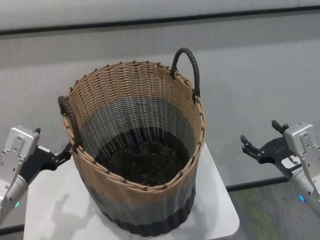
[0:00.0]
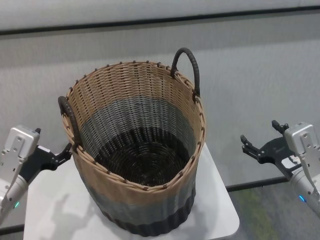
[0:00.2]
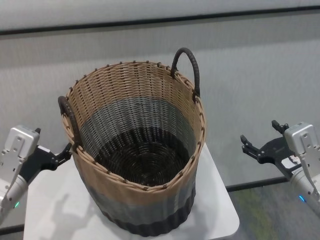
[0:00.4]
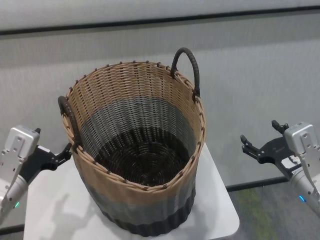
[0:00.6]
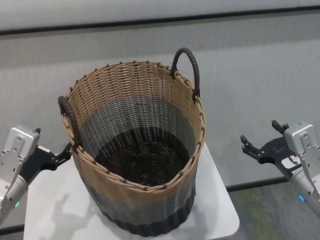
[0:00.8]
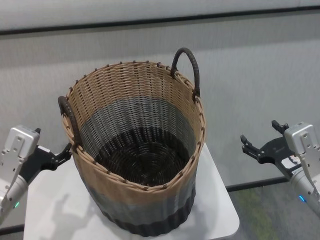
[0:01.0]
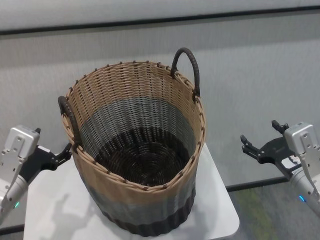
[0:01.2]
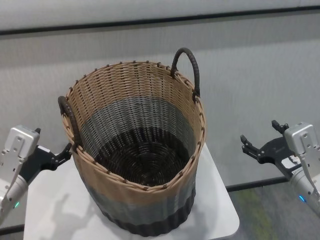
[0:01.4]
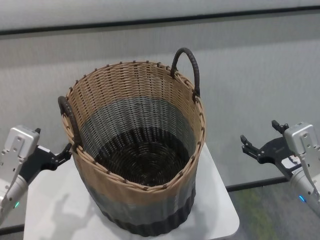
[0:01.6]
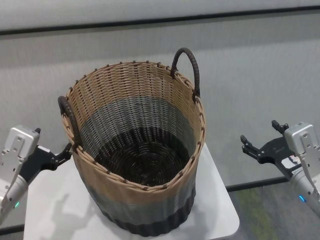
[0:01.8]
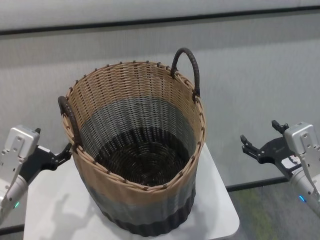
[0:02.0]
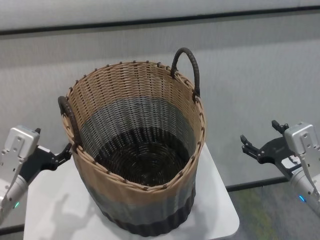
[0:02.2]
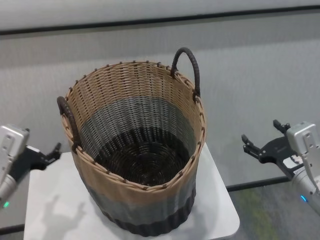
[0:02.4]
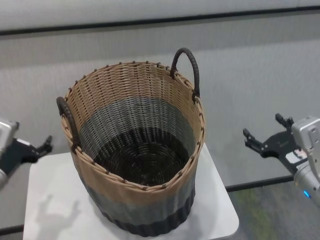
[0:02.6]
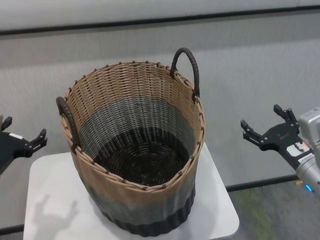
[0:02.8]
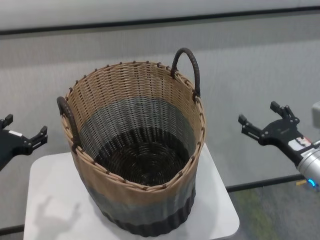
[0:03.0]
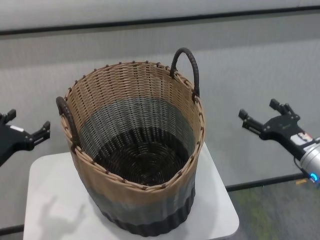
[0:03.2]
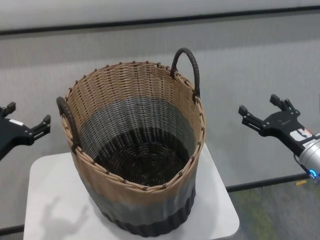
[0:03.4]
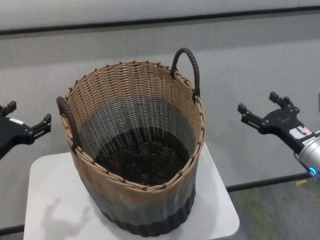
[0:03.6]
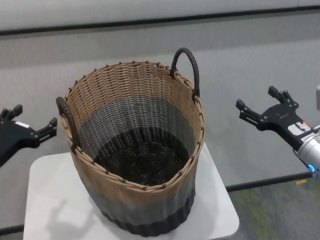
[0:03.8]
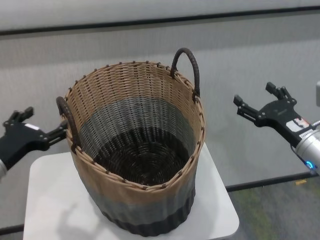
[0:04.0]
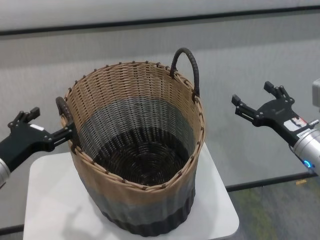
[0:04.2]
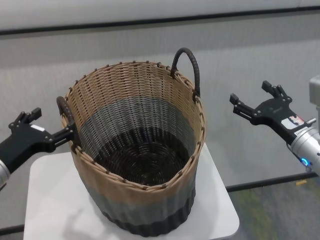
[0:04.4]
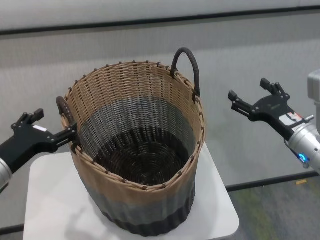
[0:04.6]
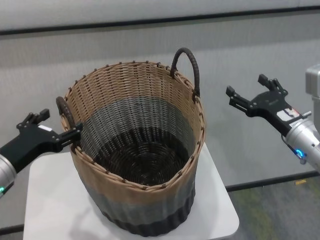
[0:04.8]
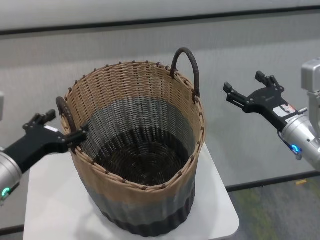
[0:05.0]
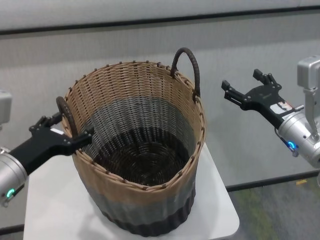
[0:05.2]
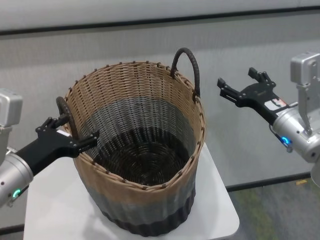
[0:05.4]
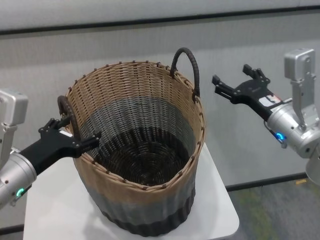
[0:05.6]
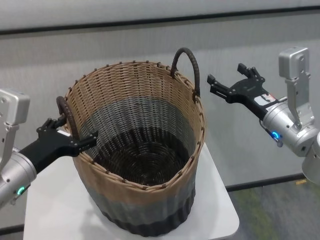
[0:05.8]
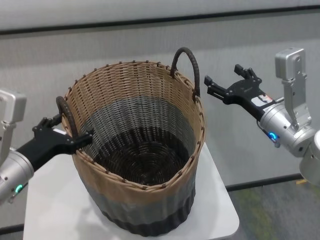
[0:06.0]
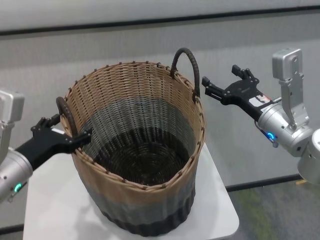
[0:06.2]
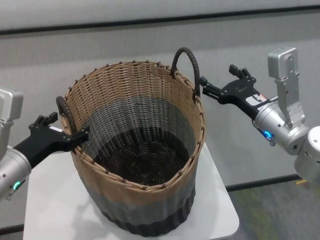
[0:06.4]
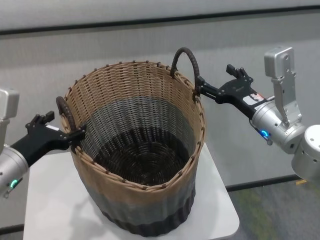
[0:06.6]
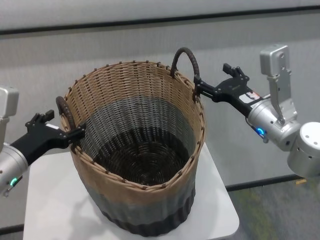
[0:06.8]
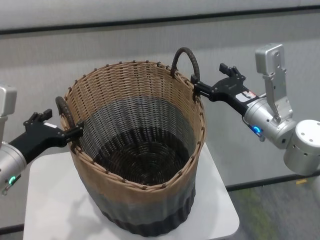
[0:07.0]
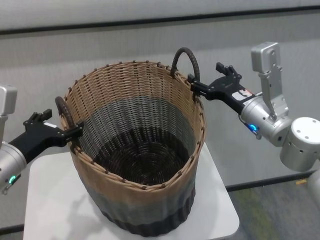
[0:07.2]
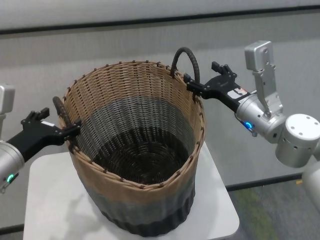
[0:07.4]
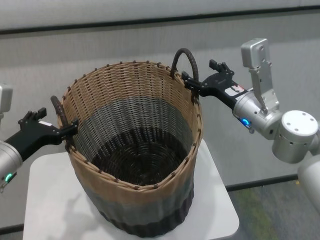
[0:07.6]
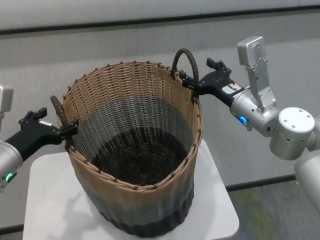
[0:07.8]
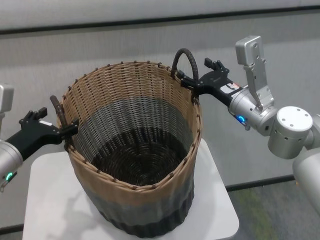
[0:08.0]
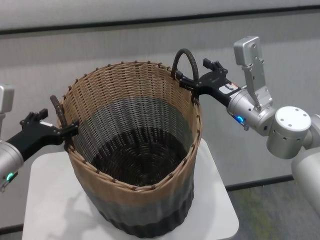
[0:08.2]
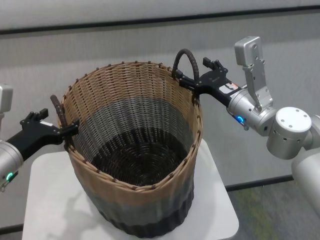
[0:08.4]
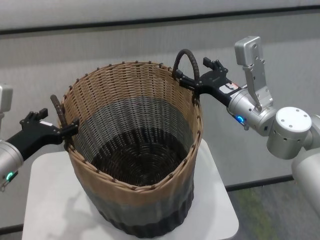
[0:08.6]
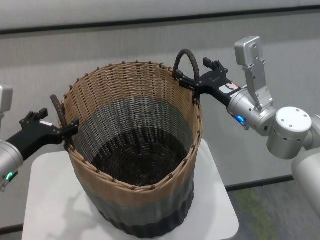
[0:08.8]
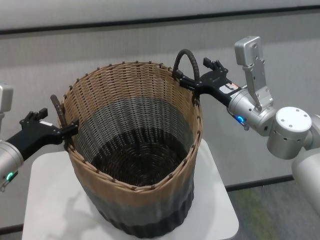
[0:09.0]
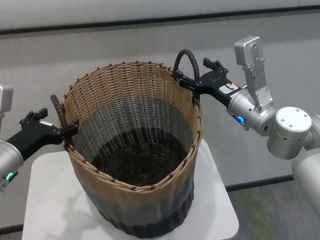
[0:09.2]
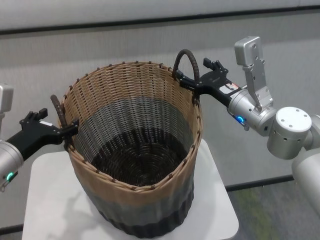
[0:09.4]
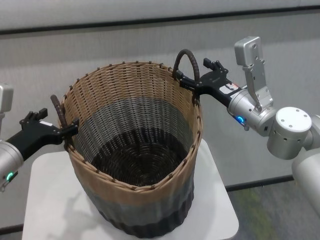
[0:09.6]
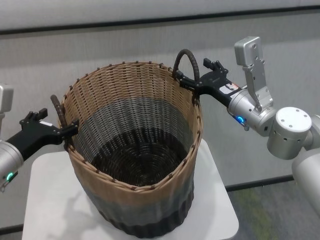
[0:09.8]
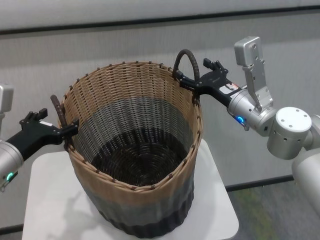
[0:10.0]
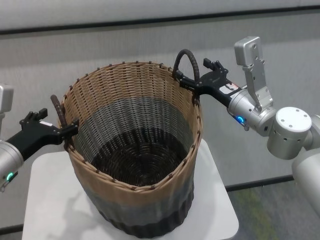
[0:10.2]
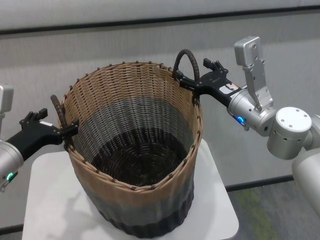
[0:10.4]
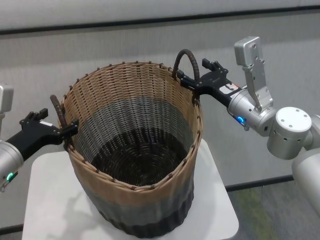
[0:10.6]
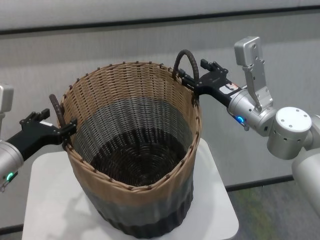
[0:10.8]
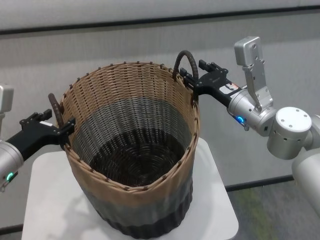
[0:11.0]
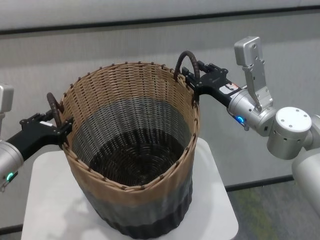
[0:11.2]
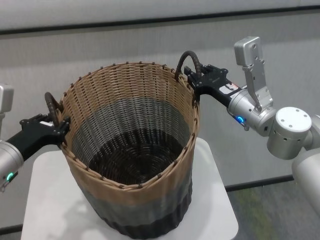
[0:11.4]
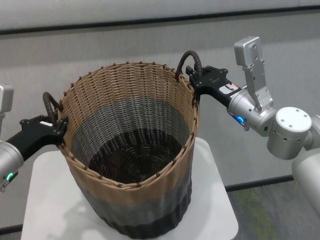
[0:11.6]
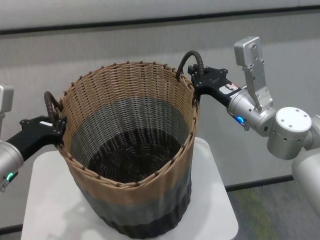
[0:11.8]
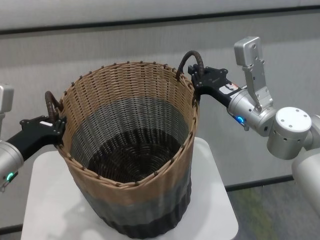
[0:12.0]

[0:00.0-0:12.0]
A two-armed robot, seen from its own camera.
Task of the whole recording: carry the clothes basket in coordination with both hands.
Step, 0:00.0 to 0:11.6: Grasp the basket with both grippers.

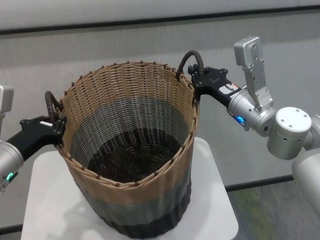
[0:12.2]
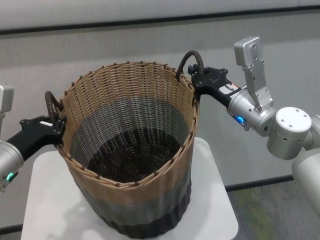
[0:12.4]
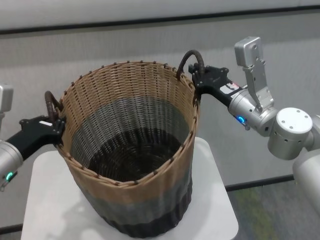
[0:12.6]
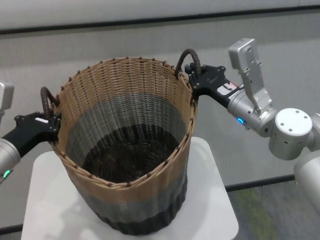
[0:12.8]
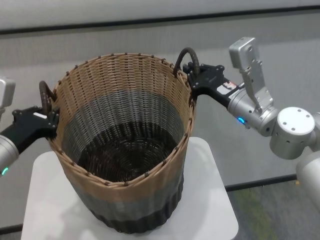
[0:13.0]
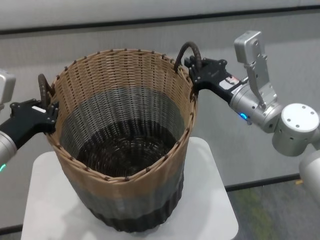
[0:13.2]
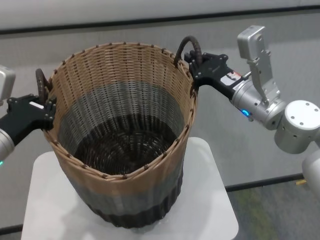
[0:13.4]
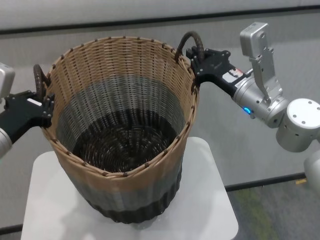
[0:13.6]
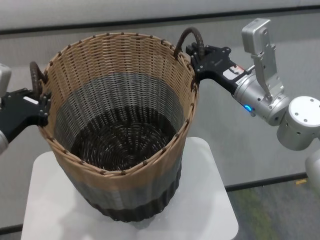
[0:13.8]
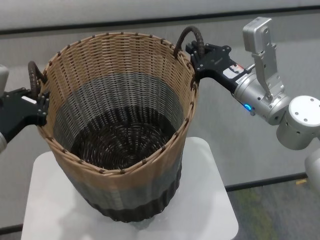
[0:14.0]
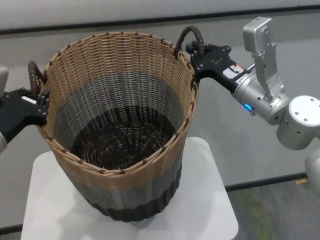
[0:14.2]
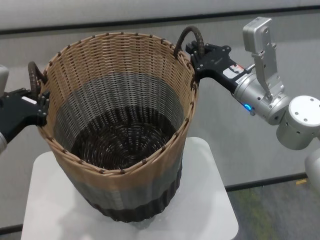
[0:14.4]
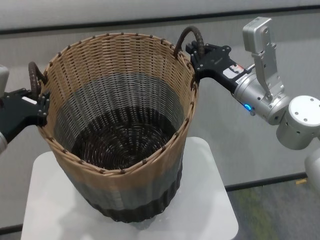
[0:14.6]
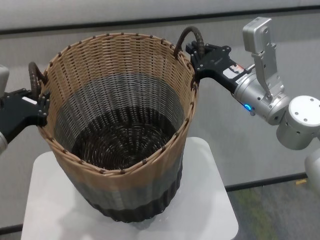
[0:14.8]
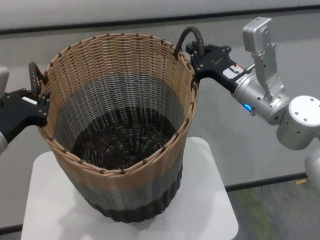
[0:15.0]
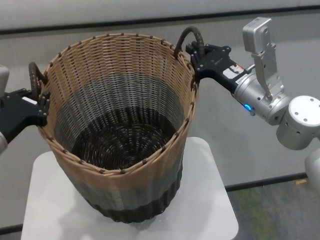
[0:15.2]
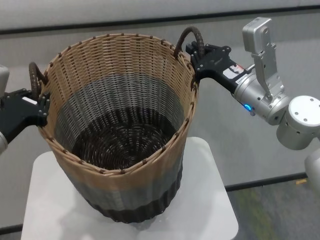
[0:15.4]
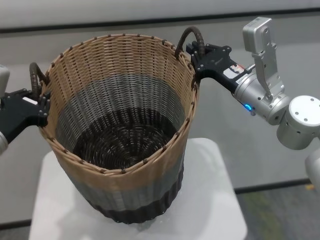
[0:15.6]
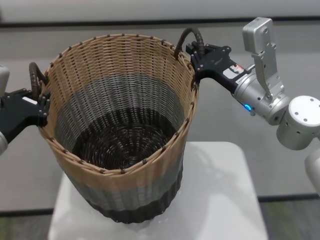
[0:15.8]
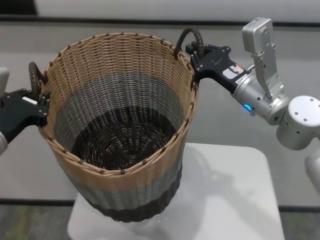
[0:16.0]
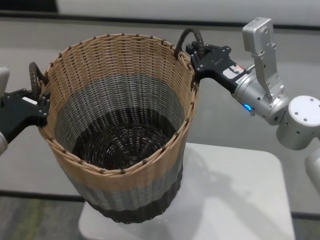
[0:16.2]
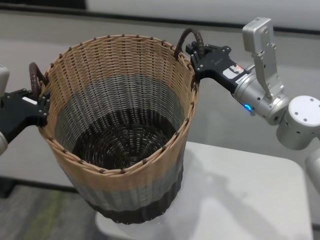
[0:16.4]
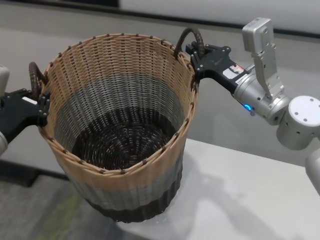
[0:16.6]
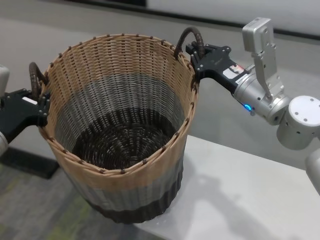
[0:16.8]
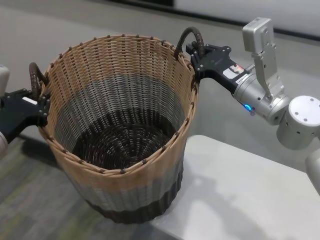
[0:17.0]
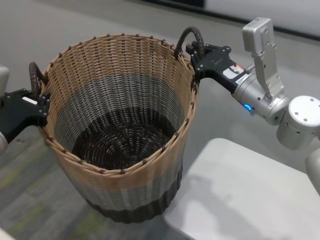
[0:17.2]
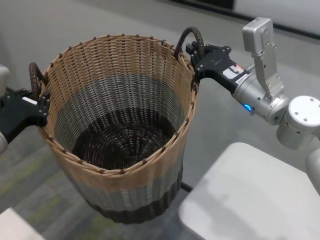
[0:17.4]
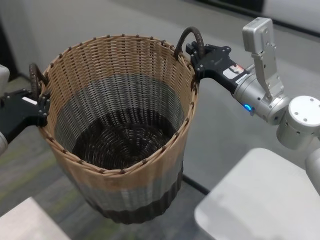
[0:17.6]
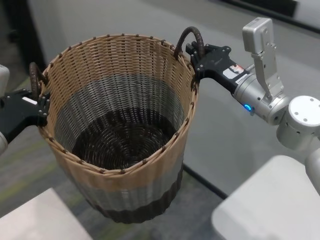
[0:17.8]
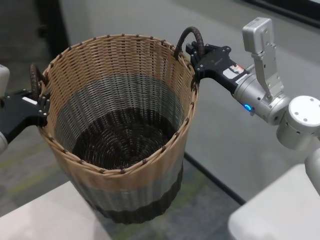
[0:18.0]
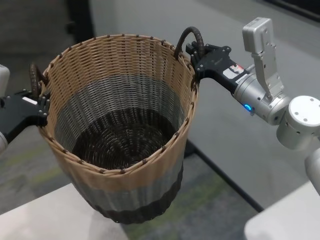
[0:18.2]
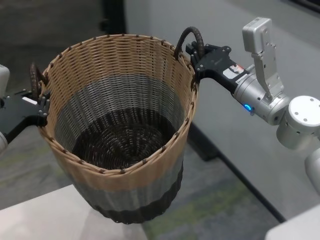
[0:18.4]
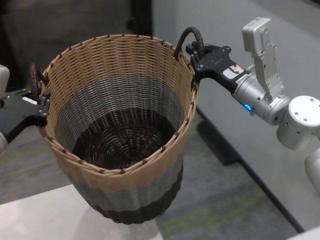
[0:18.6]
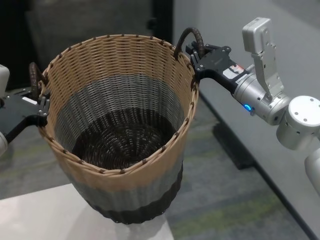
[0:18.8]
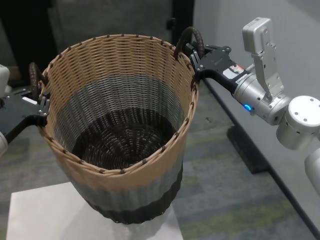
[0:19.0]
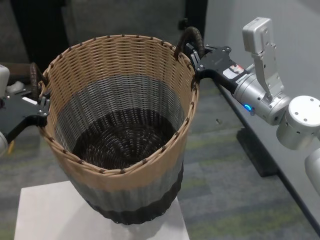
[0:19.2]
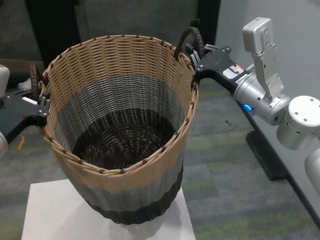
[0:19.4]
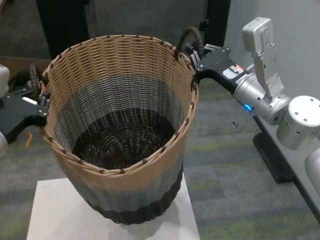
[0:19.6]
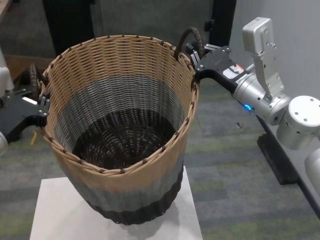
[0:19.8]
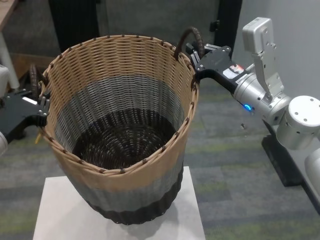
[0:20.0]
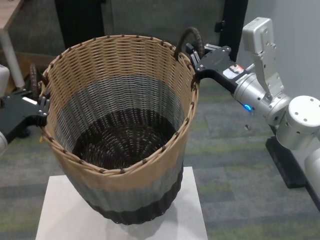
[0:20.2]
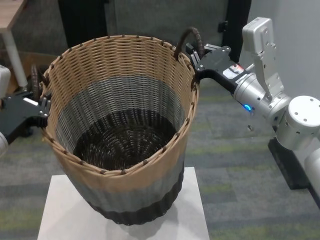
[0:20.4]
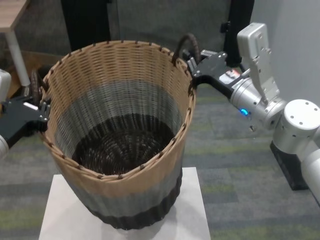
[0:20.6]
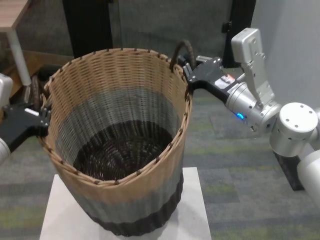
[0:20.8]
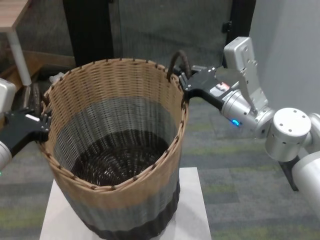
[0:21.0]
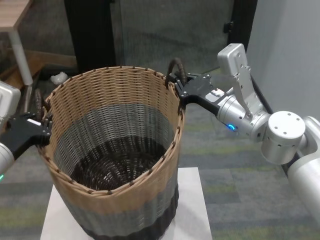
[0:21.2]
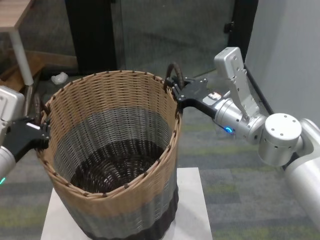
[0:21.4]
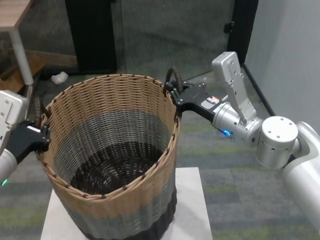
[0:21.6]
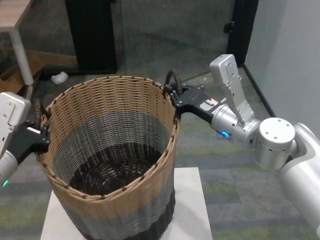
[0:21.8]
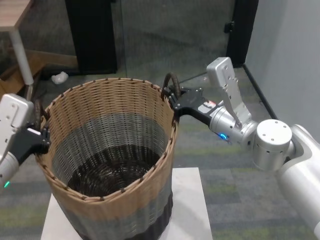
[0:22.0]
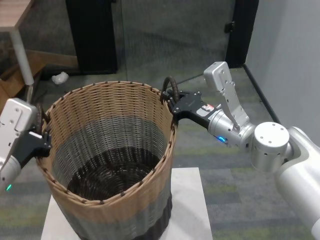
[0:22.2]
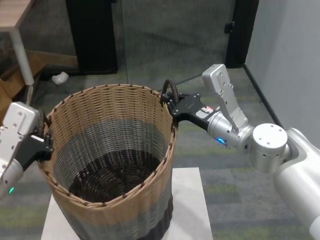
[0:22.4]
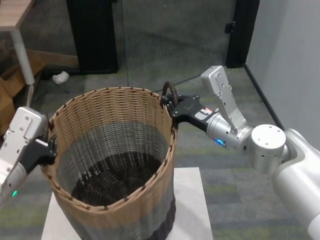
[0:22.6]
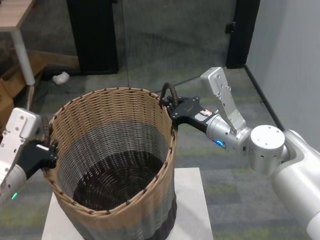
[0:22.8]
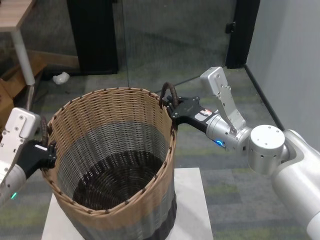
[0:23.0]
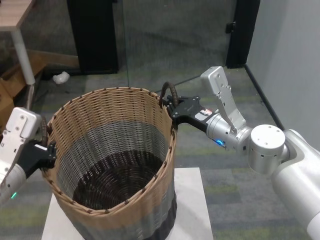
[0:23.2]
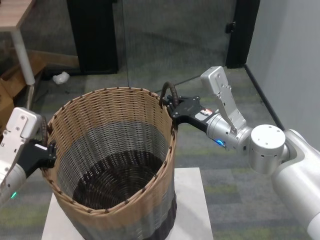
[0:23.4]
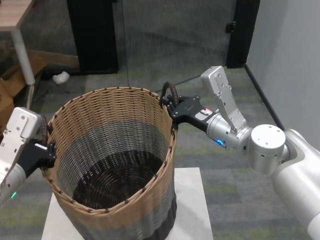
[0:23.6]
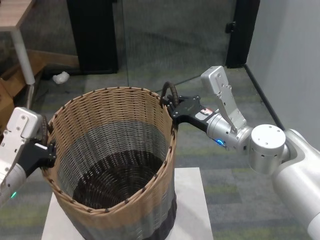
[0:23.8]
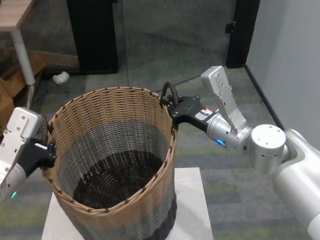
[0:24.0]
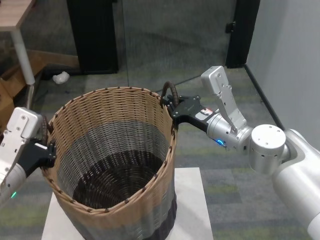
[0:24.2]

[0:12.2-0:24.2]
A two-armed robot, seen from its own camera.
Task of the whole recording: carry the clothes basket in coordination with both hands.
Step, 0:12.2 to 0:20.4: Move the basket above the other table.
